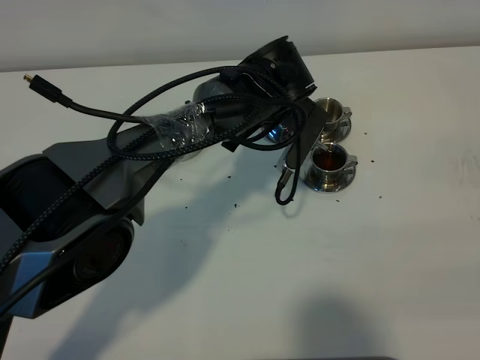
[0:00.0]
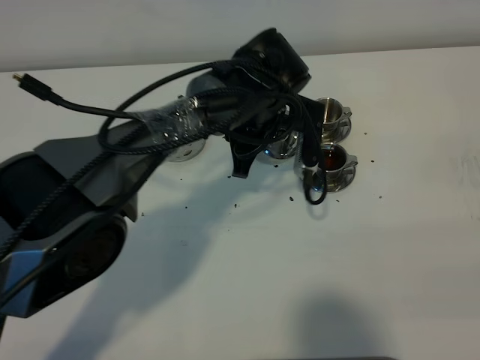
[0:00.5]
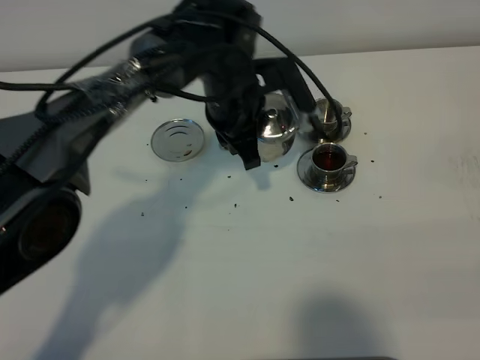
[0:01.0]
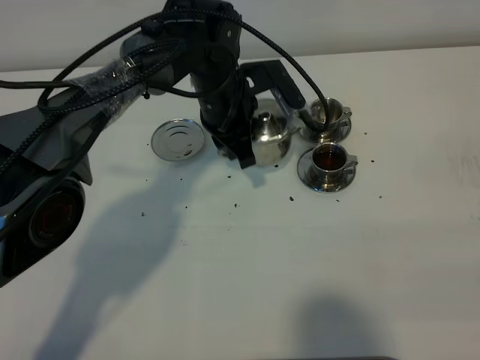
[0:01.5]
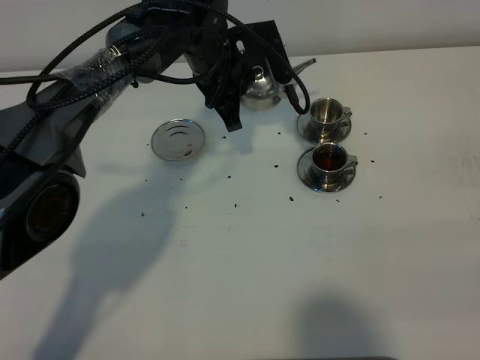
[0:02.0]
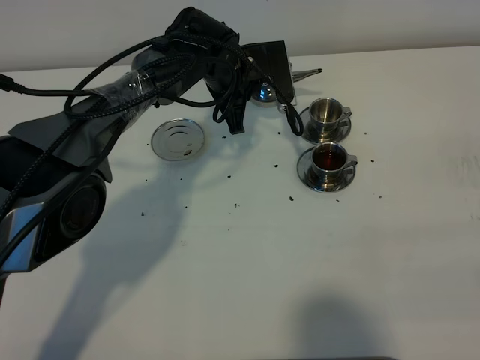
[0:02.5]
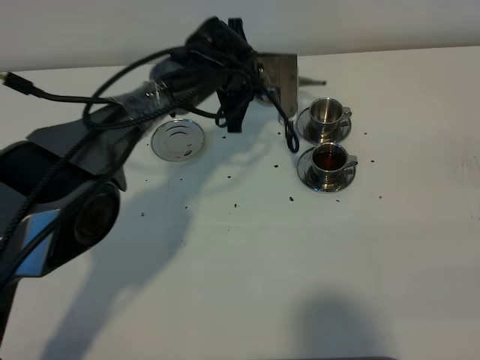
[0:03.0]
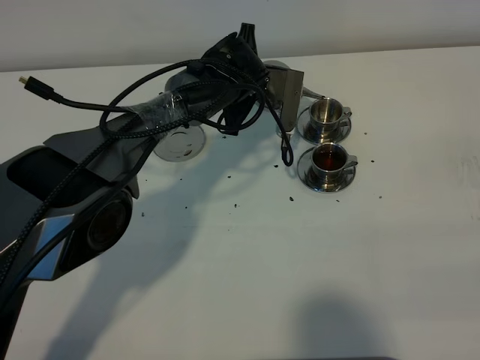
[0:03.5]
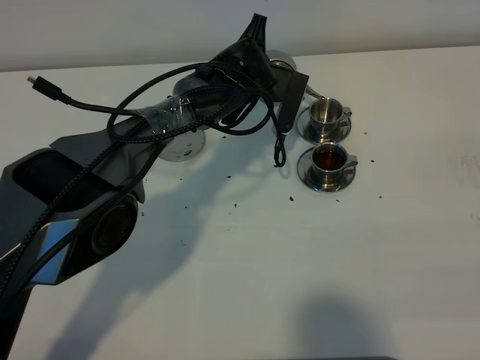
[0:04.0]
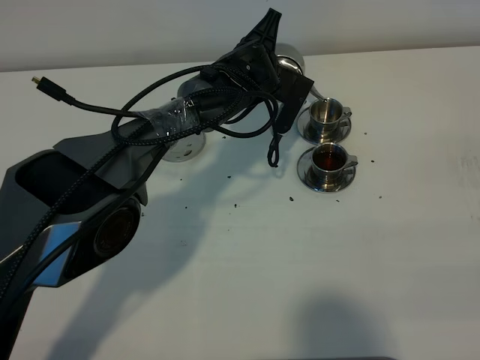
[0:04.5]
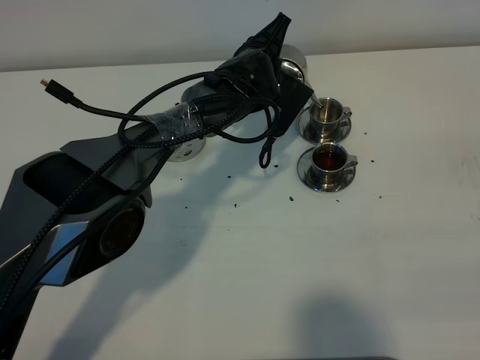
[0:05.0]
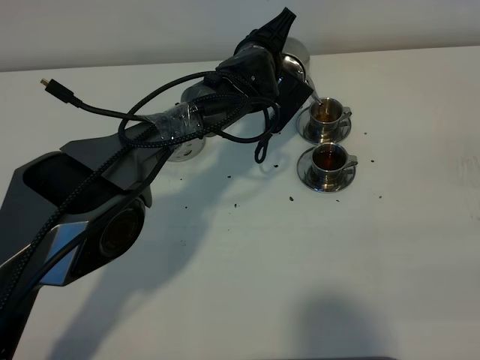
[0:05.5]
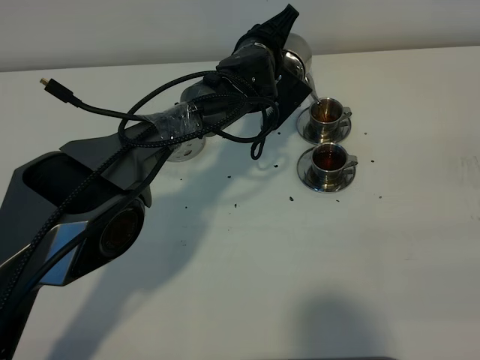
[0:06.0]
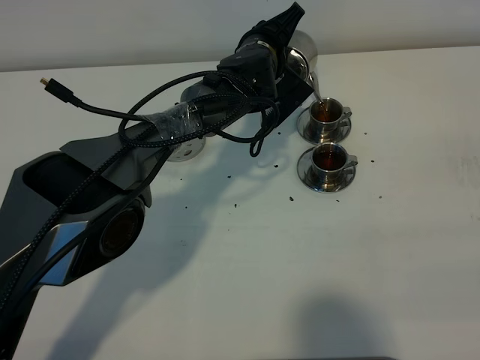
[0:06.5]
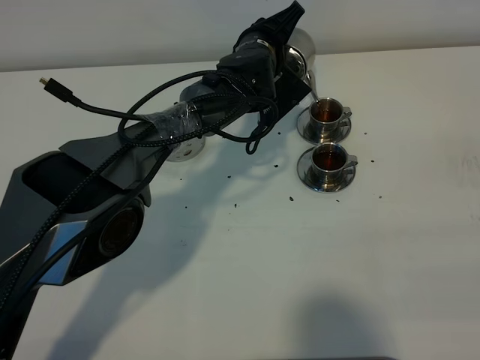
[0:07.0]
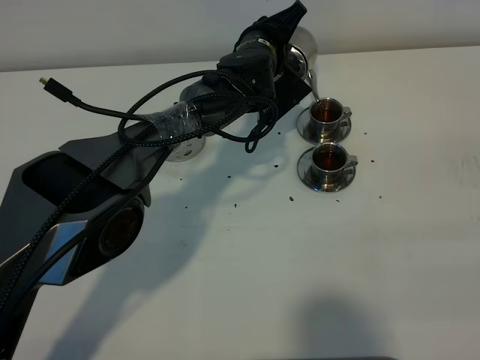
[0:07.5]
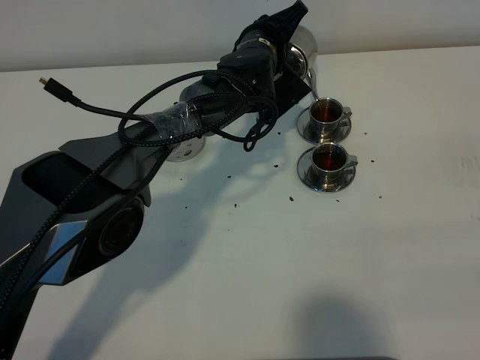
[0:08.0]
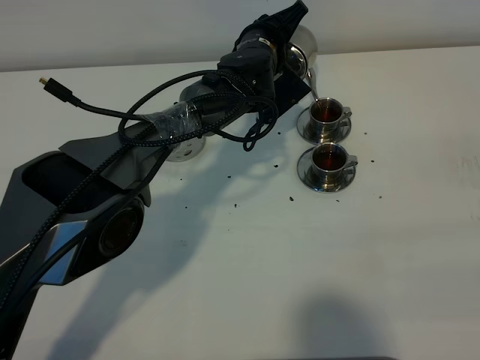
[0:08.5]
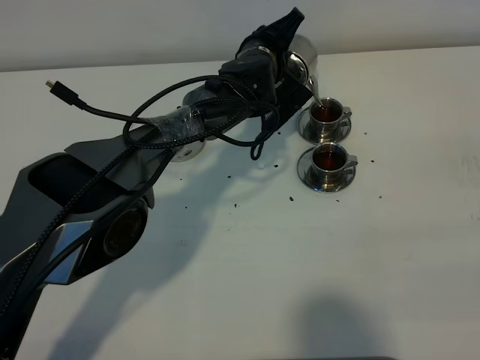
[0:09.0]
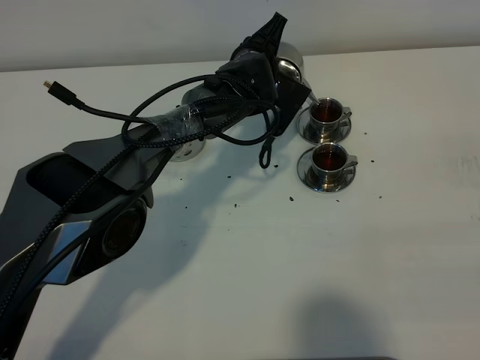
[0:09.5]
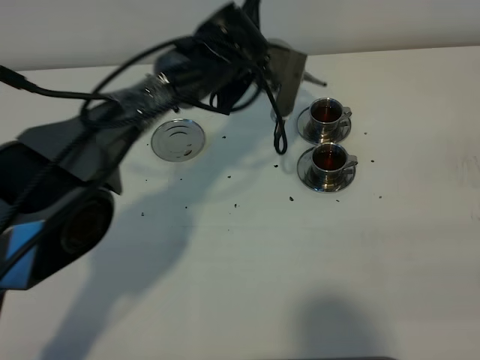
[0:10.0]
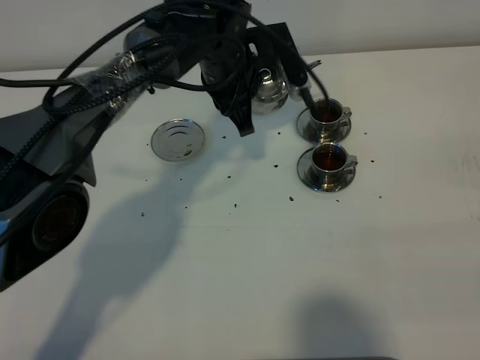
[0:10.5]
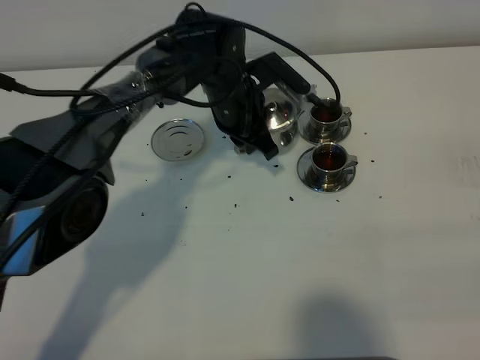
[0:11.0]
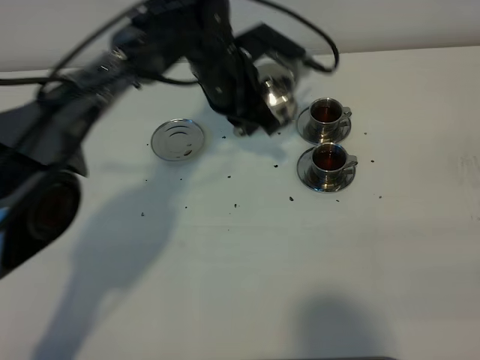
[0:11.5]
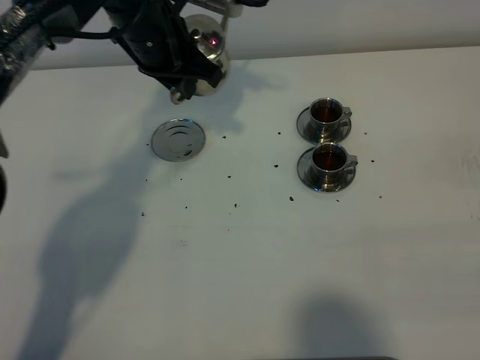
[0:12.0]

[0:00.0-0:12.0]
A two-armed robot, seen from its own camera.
Task of the whole recording: grasp the stainless steel teapot and pour the tea into the two stainless steel teacups one by one, put the stainless steel teapot back in its original place.
Step, 0:00.5 to 0:09.5: Pour tea into the teacup with the left gripper.
0:00.0 to 0:02.0: The left gripper shifts approximately 5 cm to the left.
0:02.0 to 0:04.0: The left gripper is displaced downward by approximately 5 cm.
0:06.0 to 0:08.0: There are only small adjustments of the grippers.
0:08.0 to 0:10.0: The left gripper changes place by approximately 5 cm.
0:10.0 to 0:12.0: The left gripper shifts some 10 cm to the left and upward.

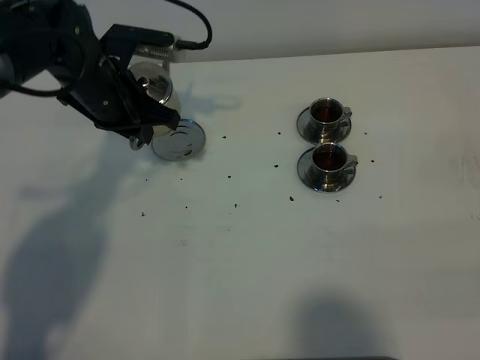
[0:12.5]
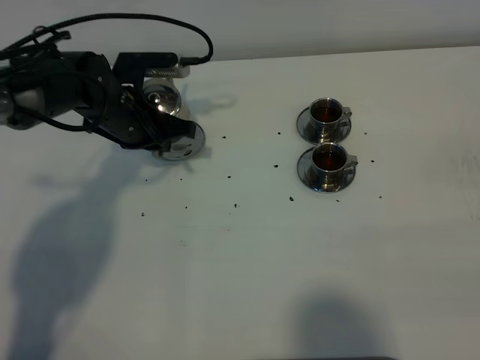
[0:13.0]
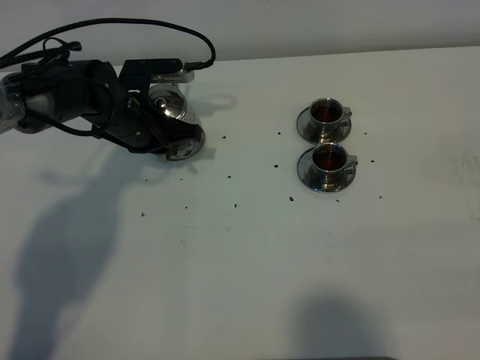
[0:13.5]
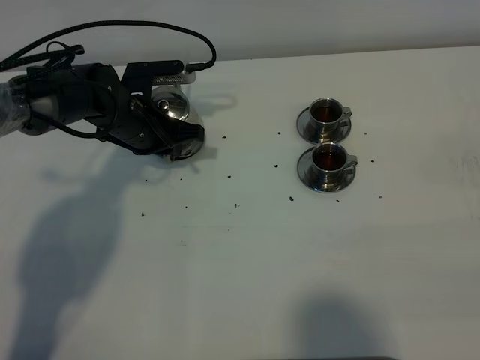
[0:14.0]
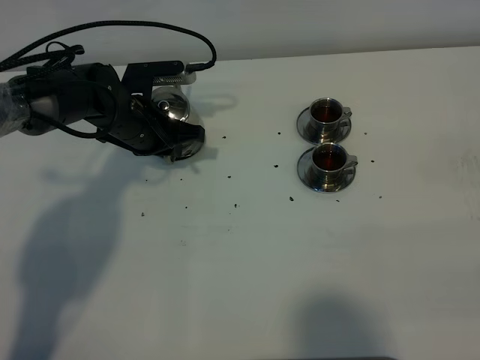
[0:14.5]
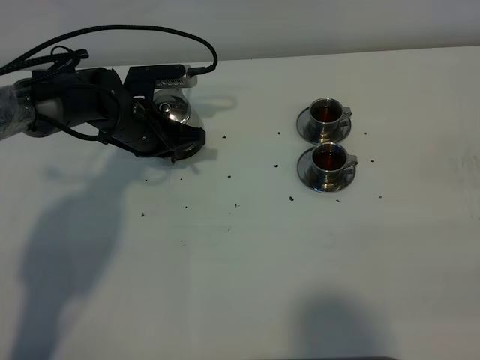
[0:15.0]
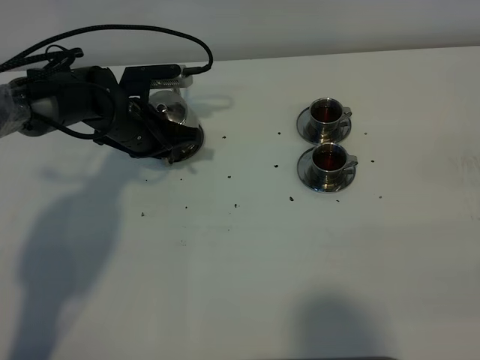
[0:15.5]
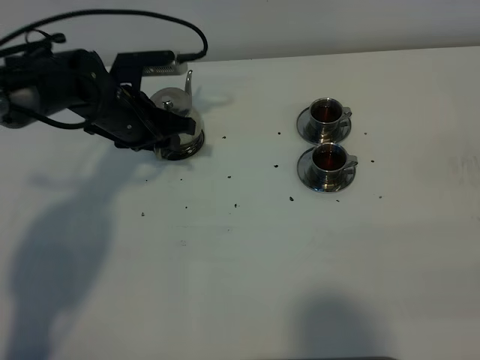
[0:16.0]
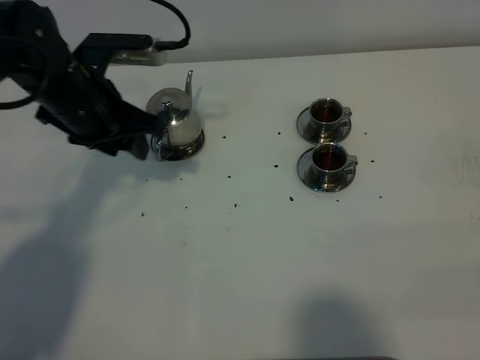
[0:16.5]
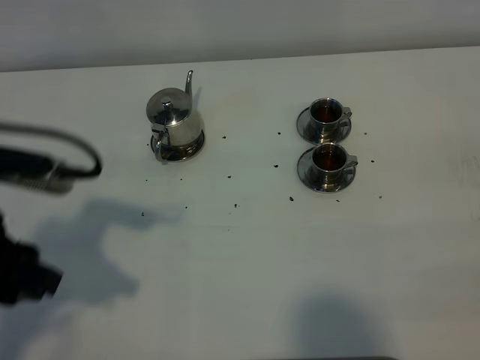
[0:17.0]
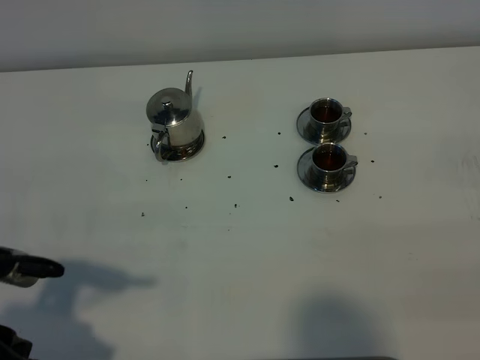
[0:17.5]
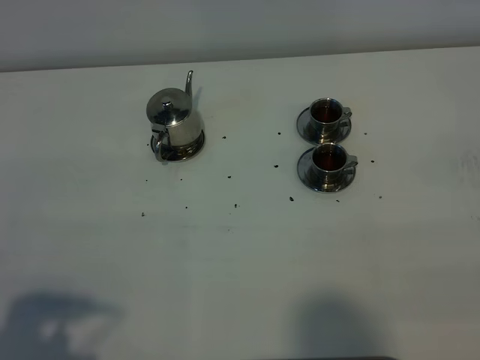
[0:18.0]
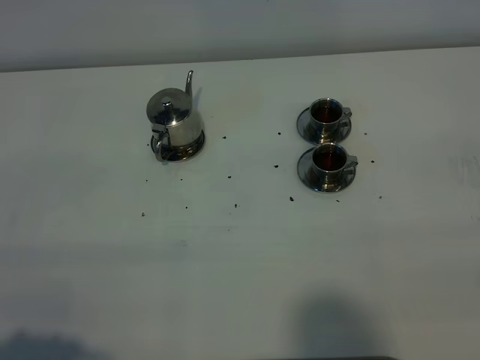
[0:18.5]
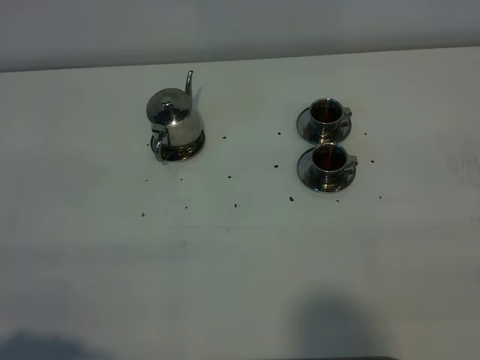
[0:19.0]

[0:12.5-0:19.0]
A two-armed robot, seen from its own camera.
Task of the whole recording: grasp the stainless steel teapot and pour the tea into the two stainless steel teacups one by one, put the stainless steel teapot back in its original place.
0:12.5 to 0:14.5: The left gripper heads downward, covering approximately 10 cm.
0:14.5 to 0:17.0: The left gripper shifts roughly 30 cm backward and upward, and opens its fingers.
0:17.0 to 0:19.0: The left gripper shifts some 15 cm backward.

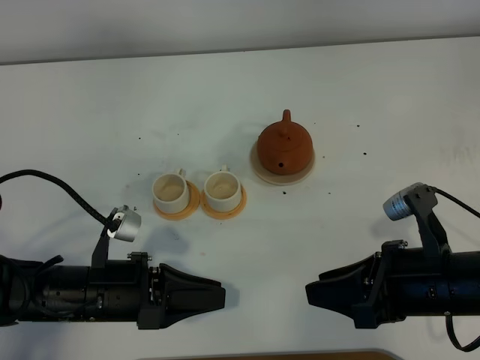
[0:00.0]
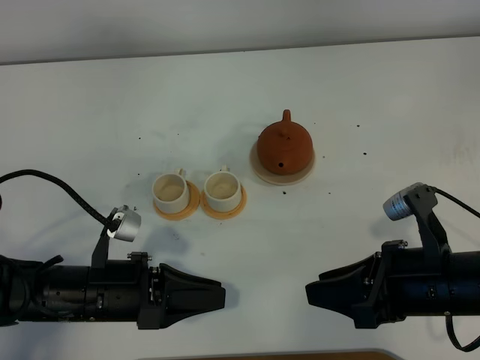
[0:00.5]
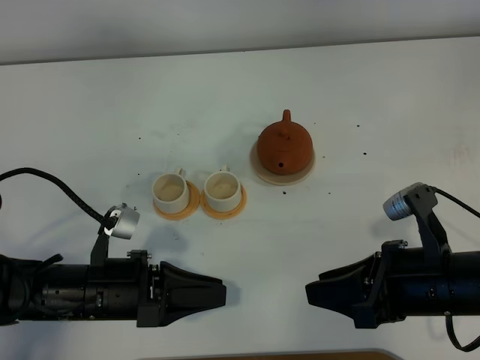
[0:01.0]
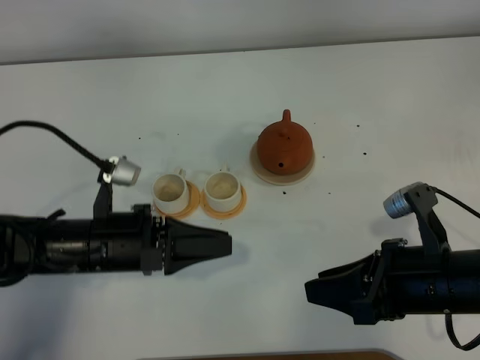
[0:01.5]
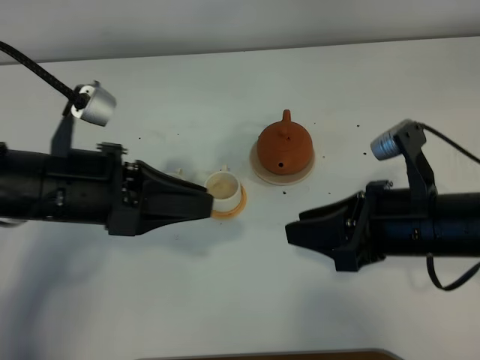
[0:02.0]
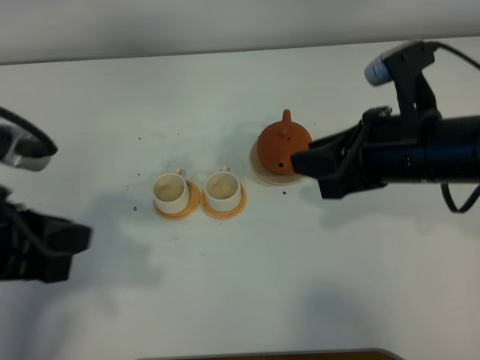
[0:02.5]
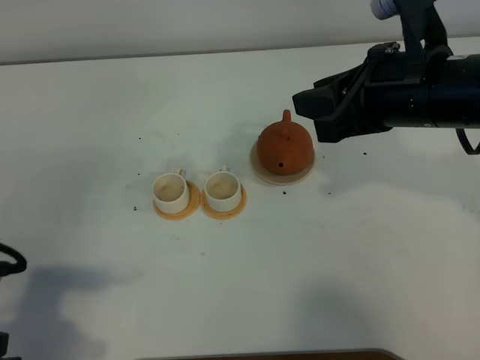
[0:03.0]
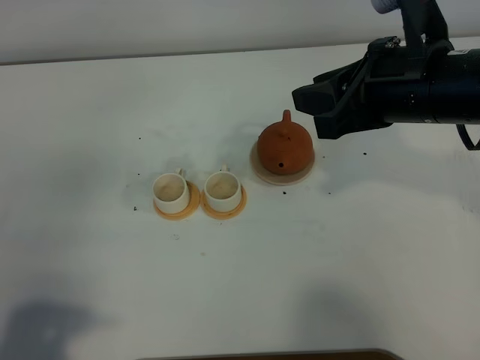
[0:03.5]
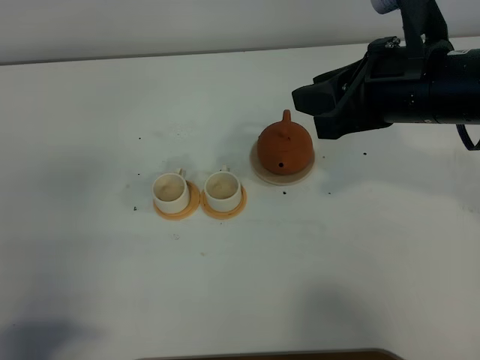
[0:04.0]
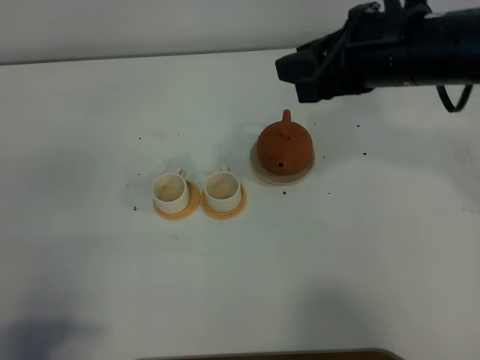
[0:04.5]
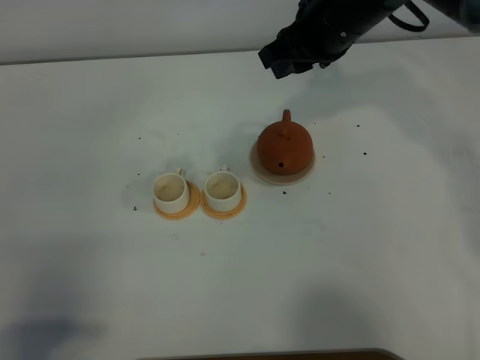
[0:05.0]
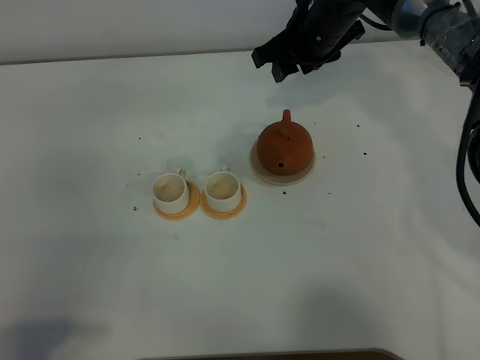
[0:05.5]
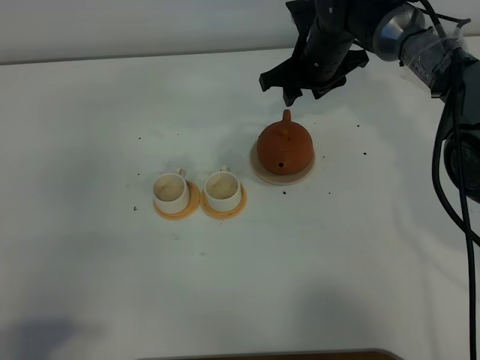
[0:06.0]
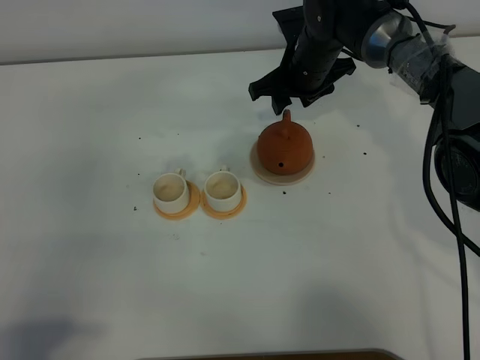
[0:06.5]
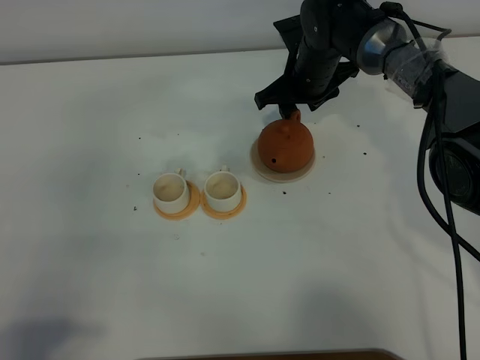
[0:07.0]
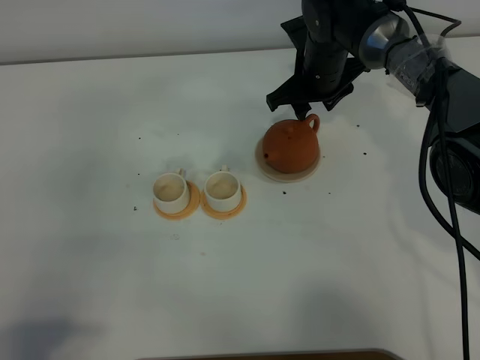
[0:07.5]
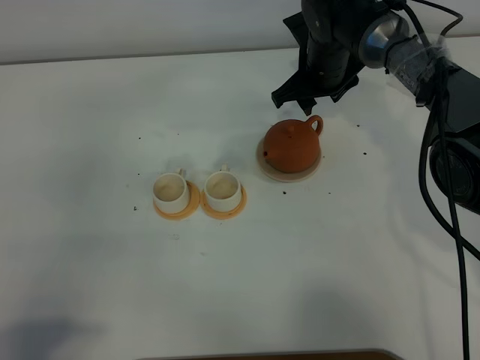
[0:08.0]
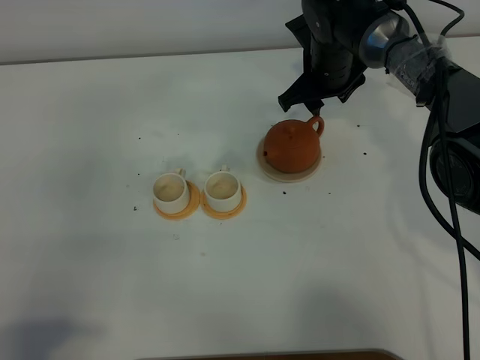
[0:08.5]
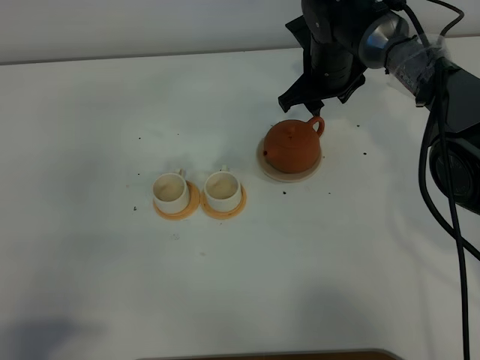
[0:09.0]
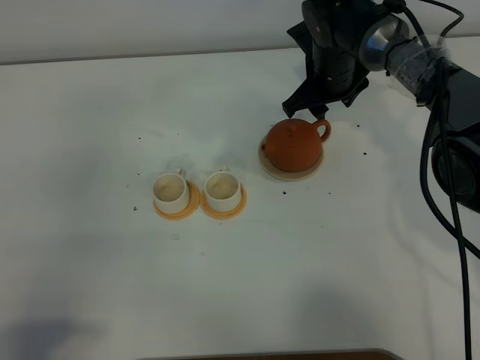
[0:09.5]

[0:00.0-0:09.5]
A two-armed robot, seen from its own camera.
Task of the whole recording: grasp the brown teapot and pour the tea into the two white teacups one by one, put the brown teapot back in its original place.
0:00.0 to 0:02.0: The left gripper travels upward by approximately 15 cm, while the right gripper moves some 5 cm.
0:02.0 to 0:04.0: The left gripper travels backward and to the left by about 25 cm, while the right gripper heads upward and forward, covering about 10 cm.
0:04.0 to 0:05.5: The right gripper travels forward, to the left and downward by approximately 25 cm.
0:05.5 to 0:07.5: The right gripper moves downward, approximately 5 cm.
0:07.5 to 0:09.5: There are only small adjustments of the grippers.
